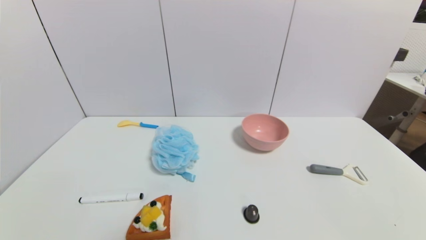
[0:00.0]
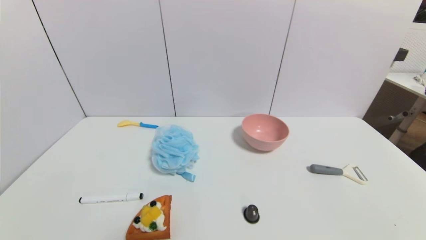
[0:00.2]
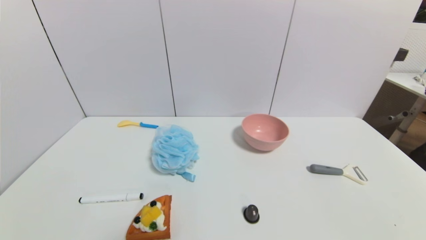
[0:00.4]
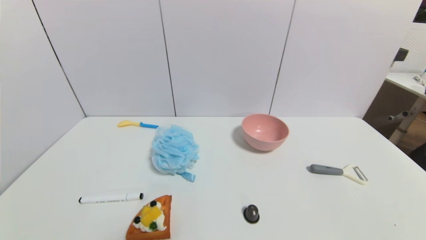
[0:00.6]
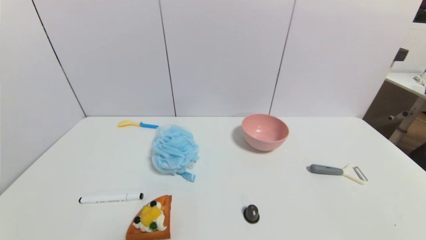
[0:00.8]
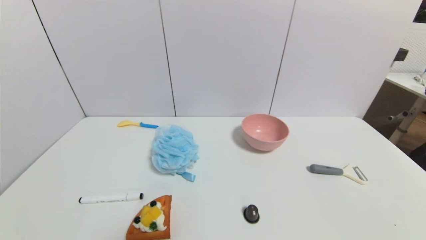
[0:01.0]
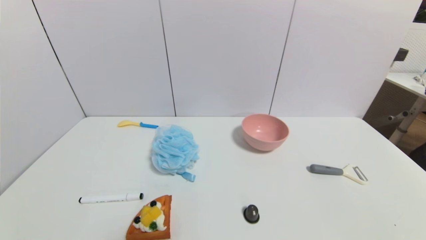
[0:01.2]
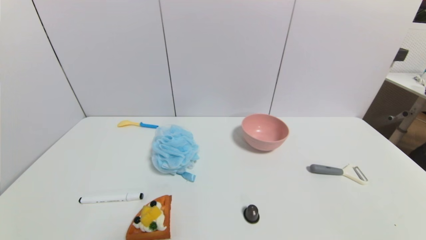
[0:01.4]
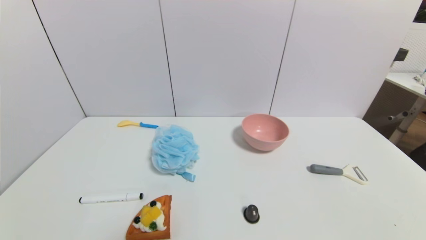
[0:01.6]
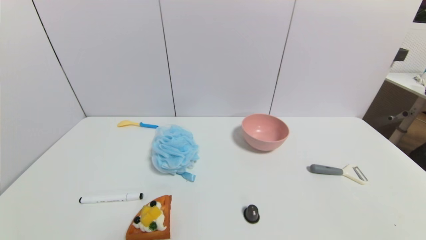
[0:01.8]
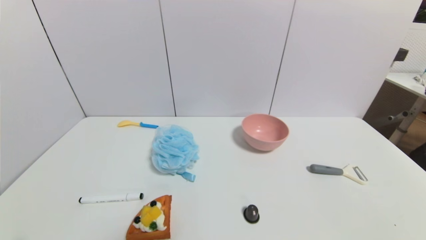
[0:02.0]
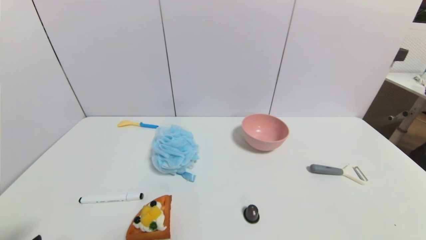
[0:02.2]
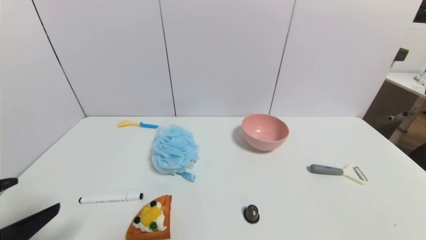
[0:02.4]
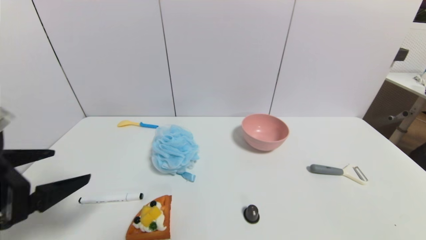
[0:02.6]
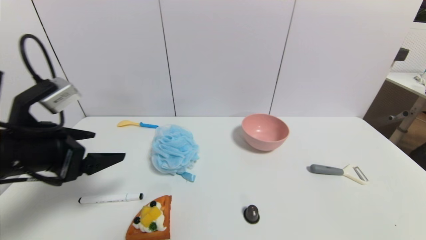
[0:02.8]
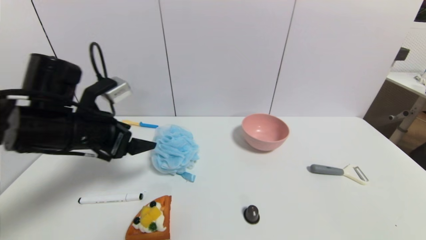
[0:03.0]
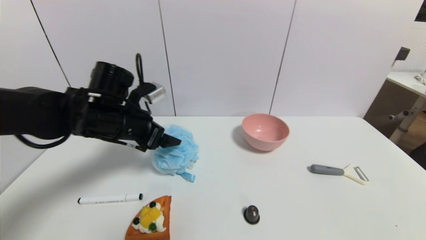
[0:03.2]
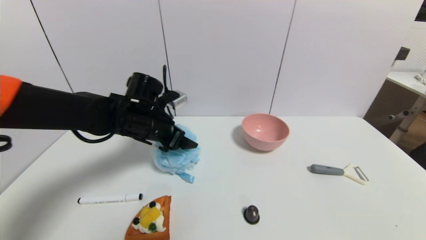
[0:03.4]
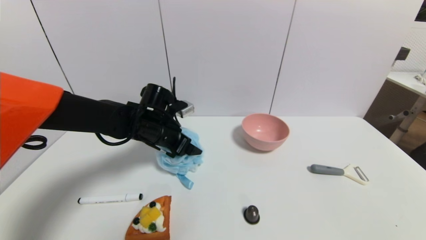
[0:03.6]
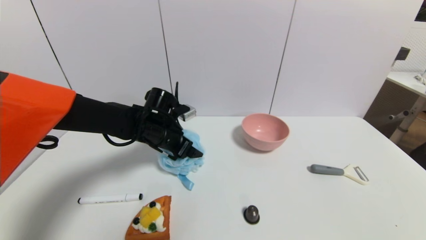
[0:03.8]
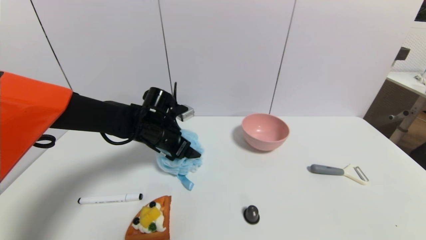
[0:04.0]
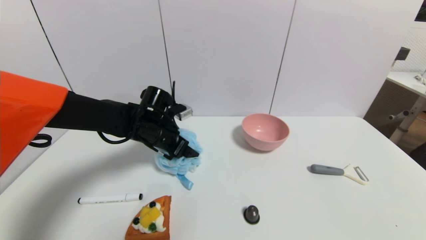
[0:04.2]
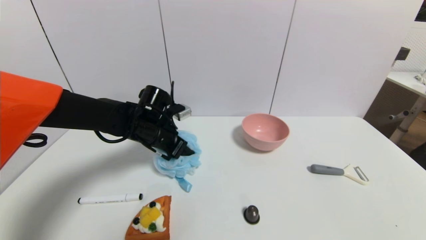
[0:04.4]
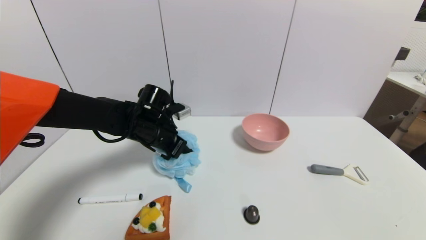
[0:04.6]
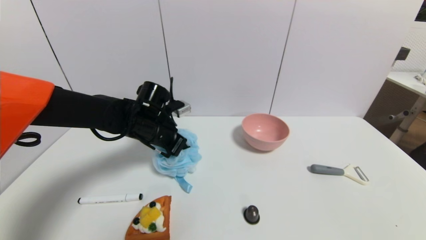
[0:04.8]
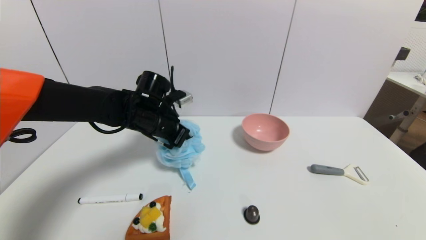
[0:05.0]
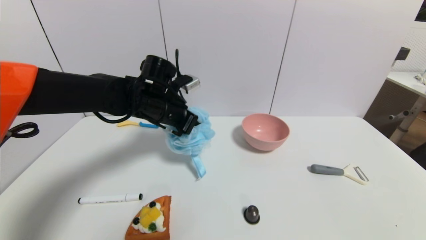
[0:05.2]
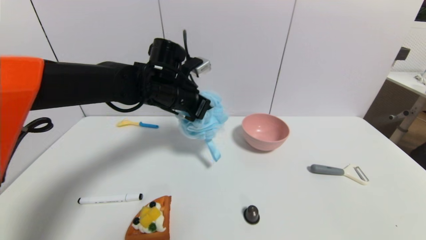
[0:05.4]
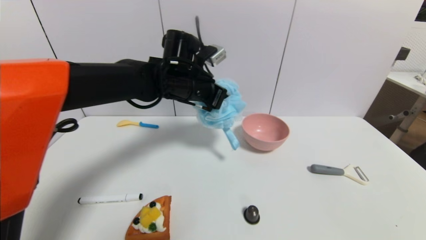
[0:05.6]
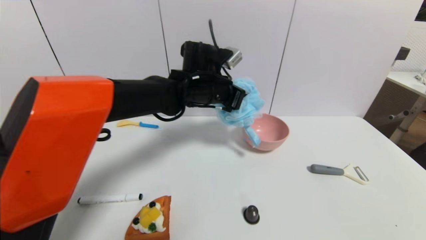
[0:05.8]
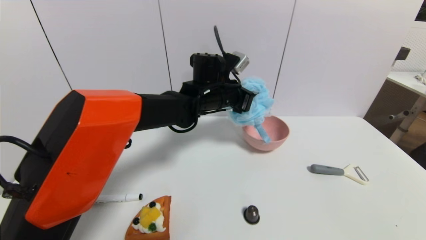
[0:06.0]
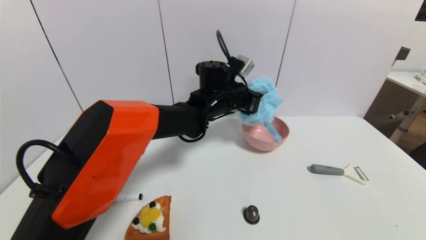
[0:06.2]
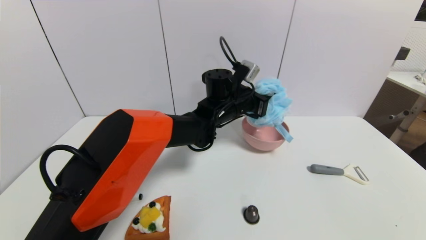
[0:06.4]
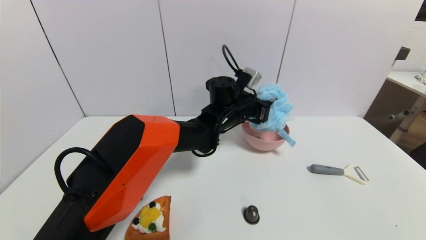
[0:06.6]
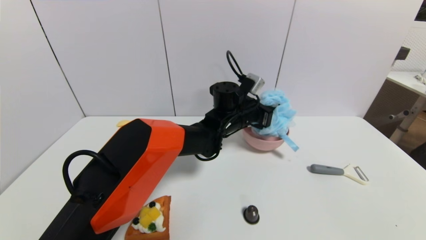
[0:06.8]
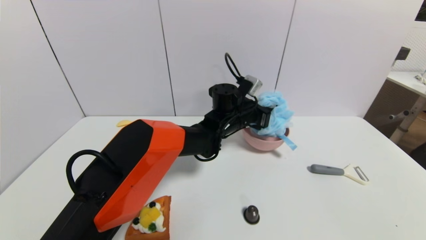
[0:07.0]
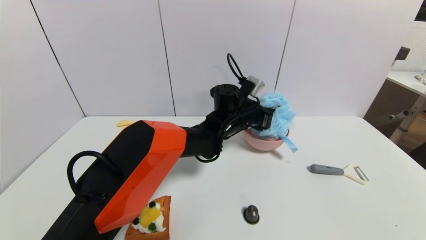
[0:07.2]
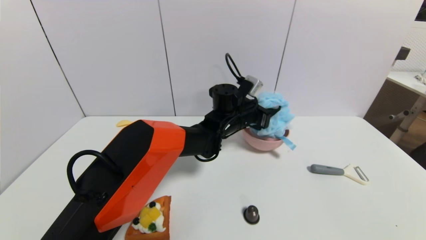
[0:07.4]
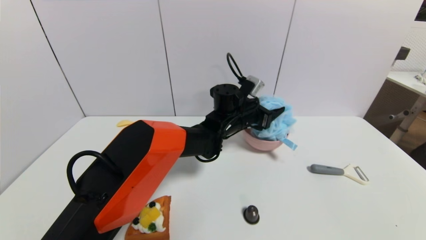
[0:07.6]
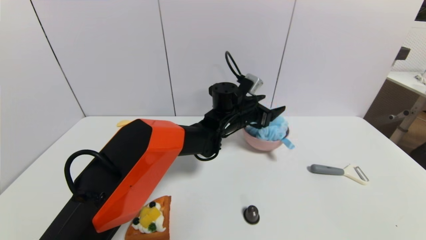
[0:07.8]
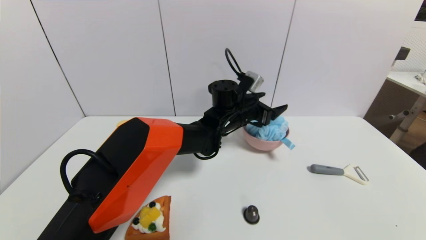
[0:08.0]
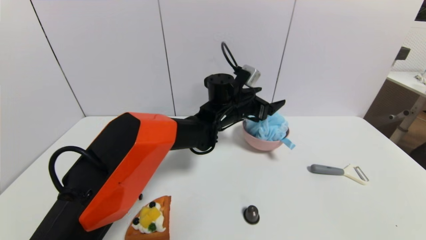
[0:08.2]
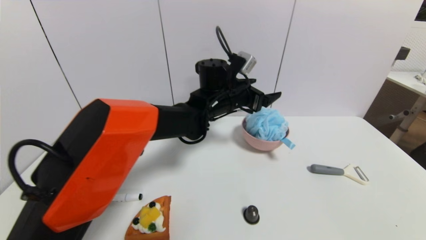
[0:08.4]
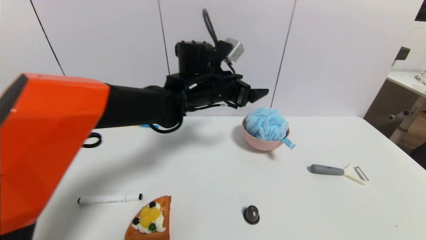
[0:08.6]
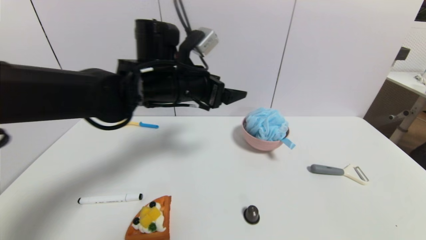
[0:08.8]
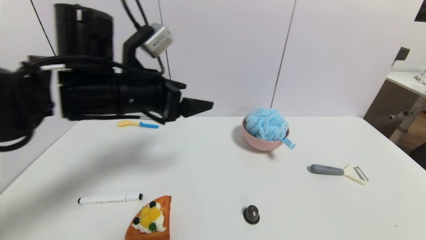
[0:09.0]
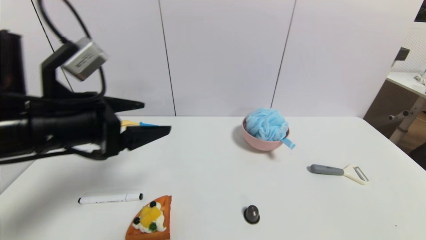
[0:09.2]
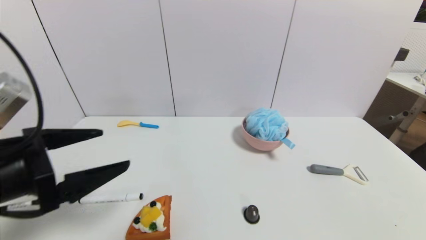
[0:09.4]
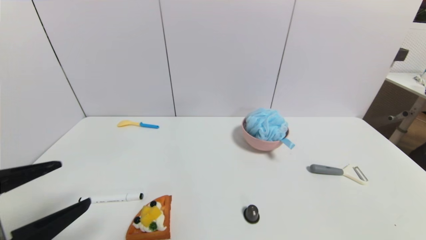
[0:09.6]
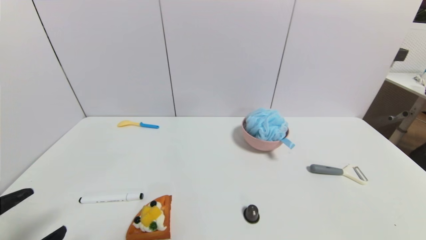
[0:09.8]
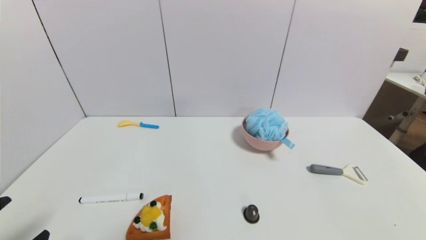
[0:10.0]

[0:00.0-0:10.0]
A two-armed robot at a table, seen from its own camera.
Task of the whole recording: use a gripper to pick the target object and place on the pink bowl.
Step, 0:00.0 to 0:04.8: Grasp the shower sphere with the left gripper.
Step, 0:05.0 to 0:07.8: Place the shower sphere on the pink bowl with the left gripper.
0:00.0 to 0:01.4: Both grippers stay about where they are.
0:01.4 to 0:02.8: The left gripper is displaced forward and upward by some 25 cm.
0:02.8 to 0:04.2: The left gripper travels forward, to the right and downward by roughly 25 cm.
0:04.2 to 0:05.8: The left gripper is displaced to the right and upward by about 15 cm, and closes.
0:05.8 to 0:07.2: The left gripper shifts roughly 10 cm downward and to the right.
0:07.2 to 0:08.6: The left gripper goes approximately 10 cm upward and to the left, and opens up.
0:08.6 to 0:10.0: The left gripper heads backward and to the left, covering some 40 cm.

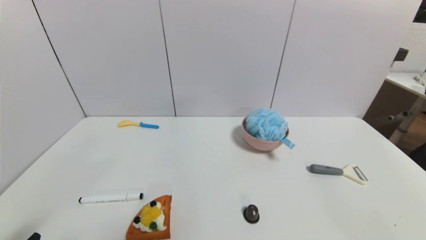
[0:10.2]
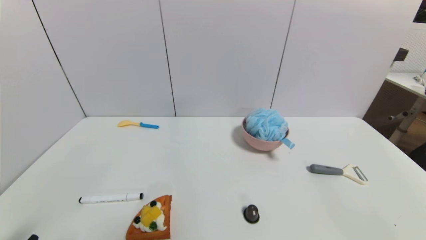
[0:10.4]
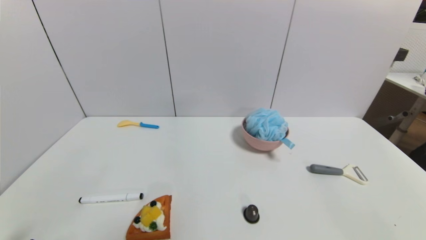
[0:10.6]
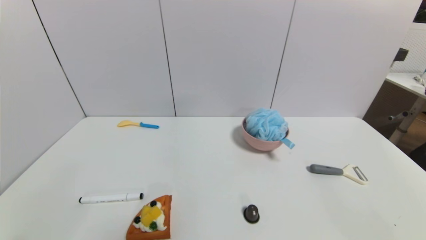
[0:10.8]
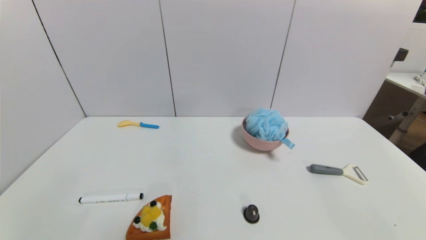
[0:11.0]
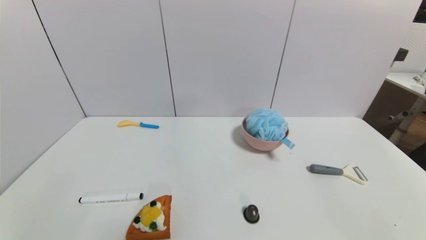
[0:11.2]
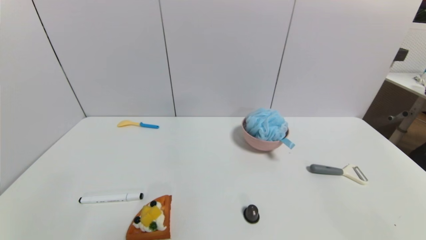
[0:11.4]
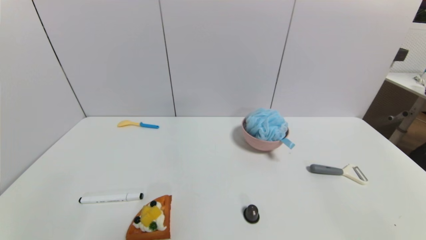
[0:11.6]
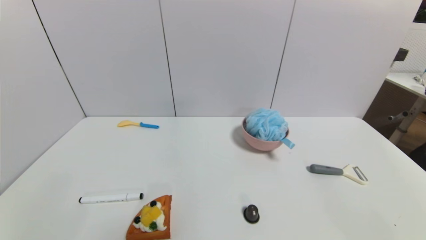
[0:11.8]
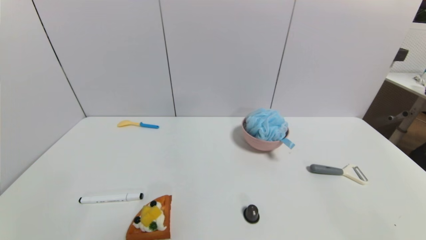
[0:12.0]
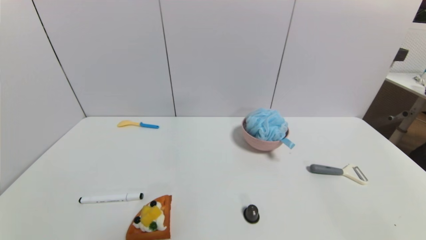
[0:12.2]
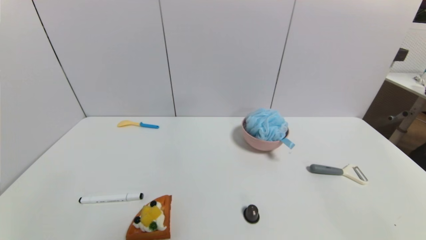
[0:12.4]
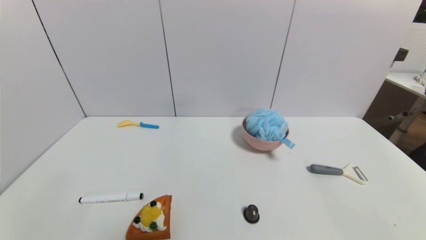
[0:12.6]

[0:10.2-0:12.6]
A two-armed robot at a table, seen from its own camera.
Task of the whole recording: use a gripper to pick the target object and place on the pink bowl.
0:11.4 to 0:12.6: Both grippers stay about where they are.
